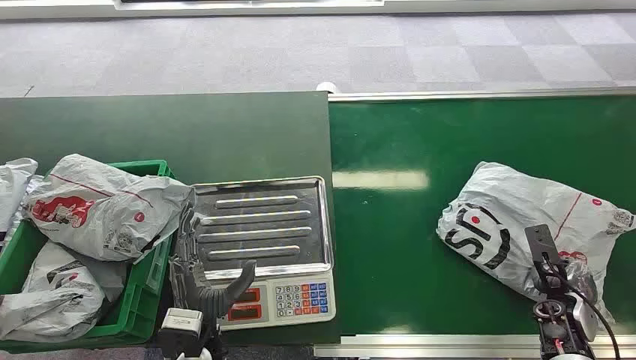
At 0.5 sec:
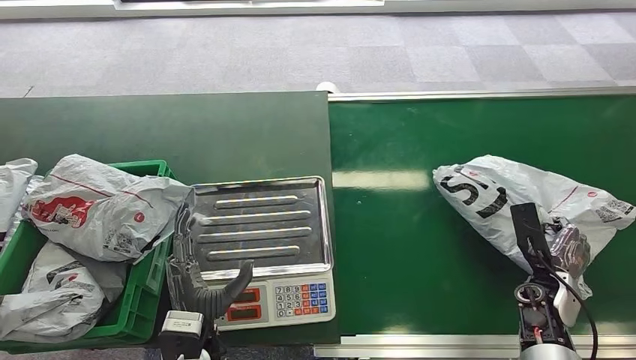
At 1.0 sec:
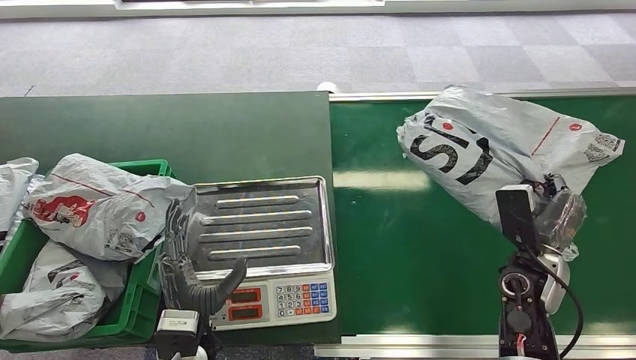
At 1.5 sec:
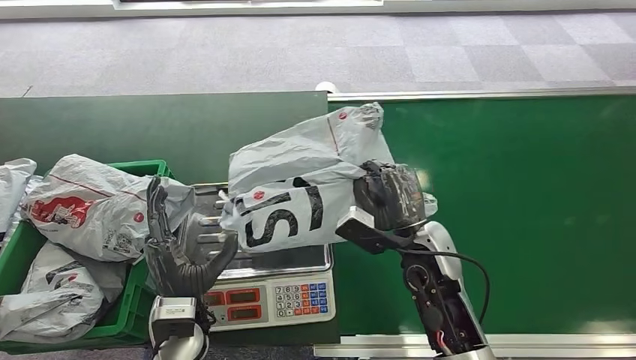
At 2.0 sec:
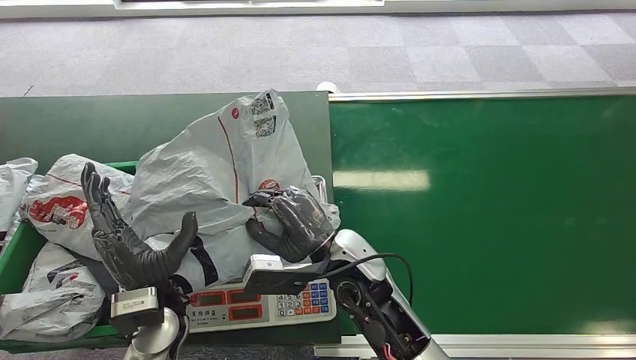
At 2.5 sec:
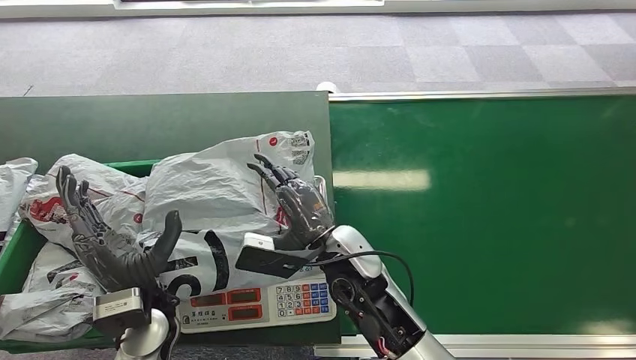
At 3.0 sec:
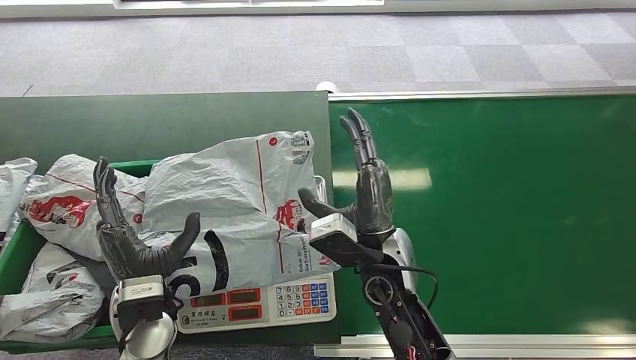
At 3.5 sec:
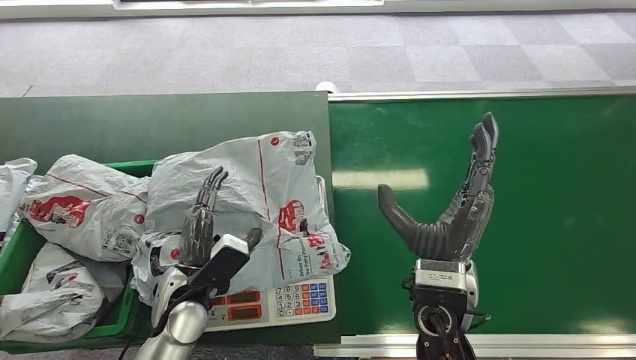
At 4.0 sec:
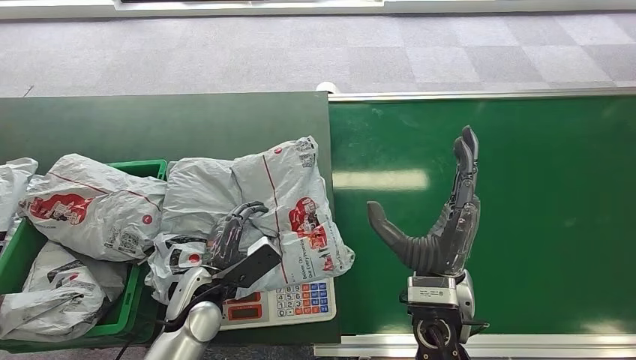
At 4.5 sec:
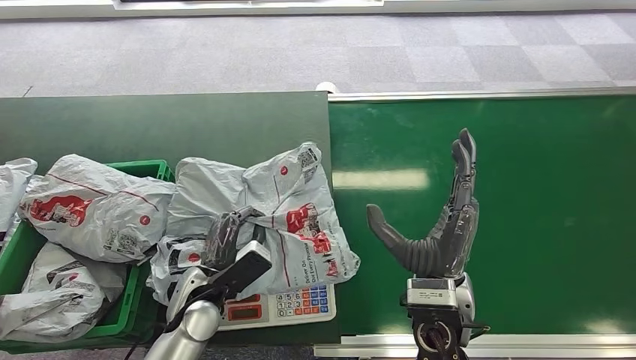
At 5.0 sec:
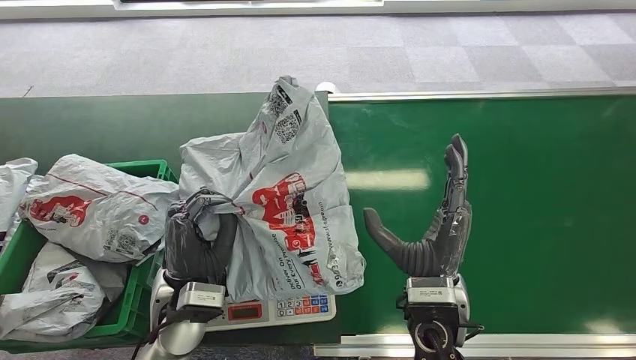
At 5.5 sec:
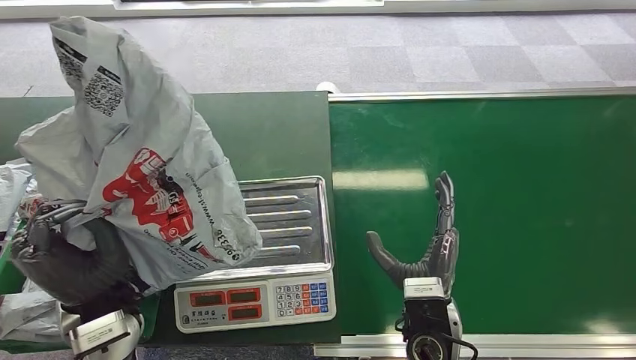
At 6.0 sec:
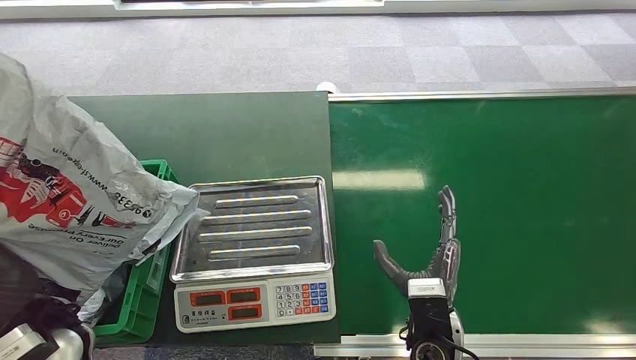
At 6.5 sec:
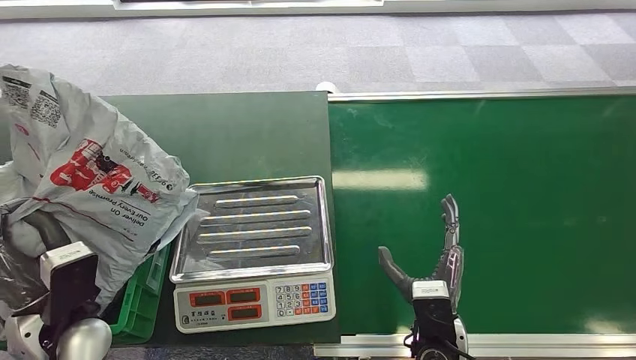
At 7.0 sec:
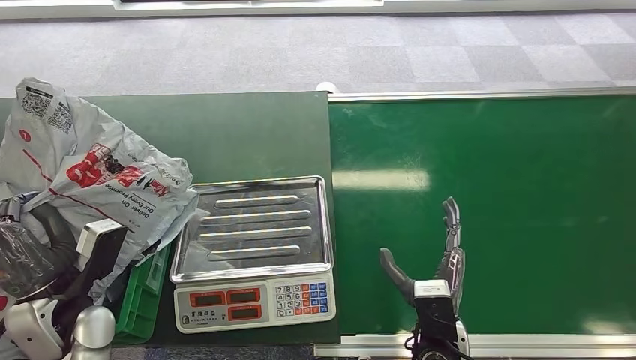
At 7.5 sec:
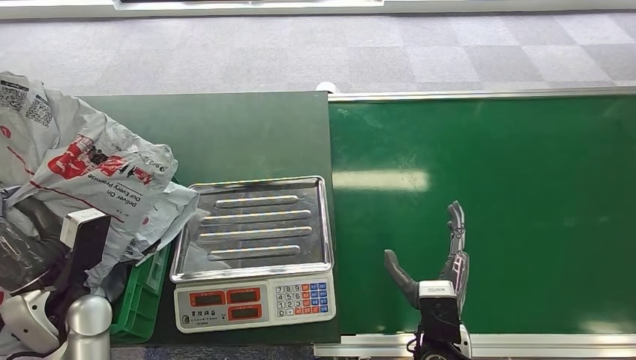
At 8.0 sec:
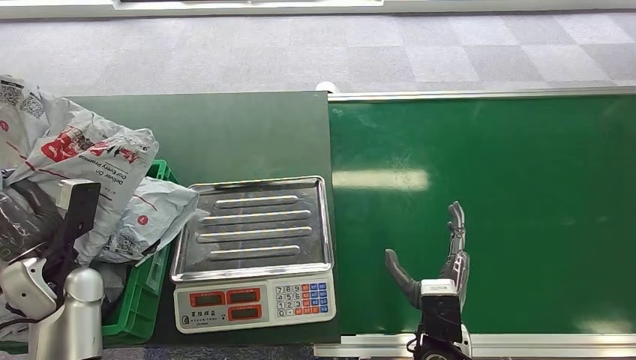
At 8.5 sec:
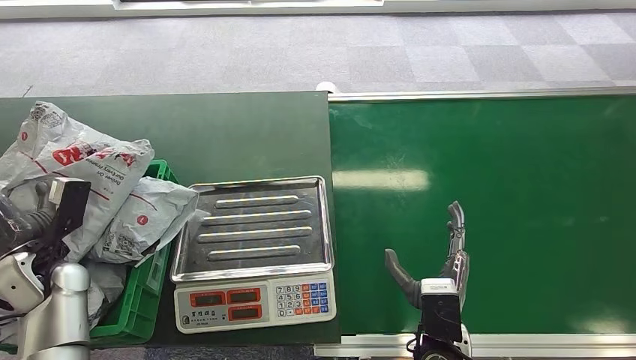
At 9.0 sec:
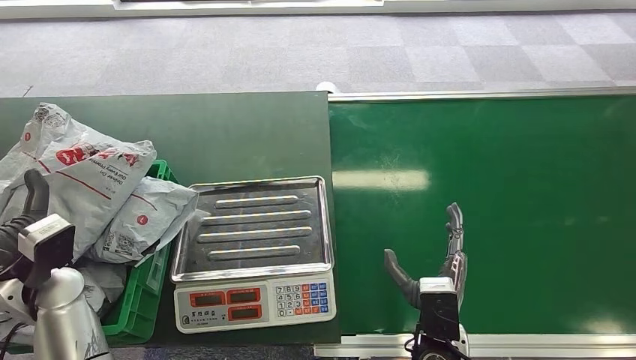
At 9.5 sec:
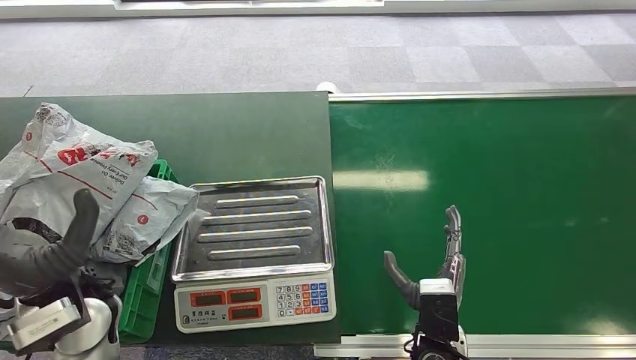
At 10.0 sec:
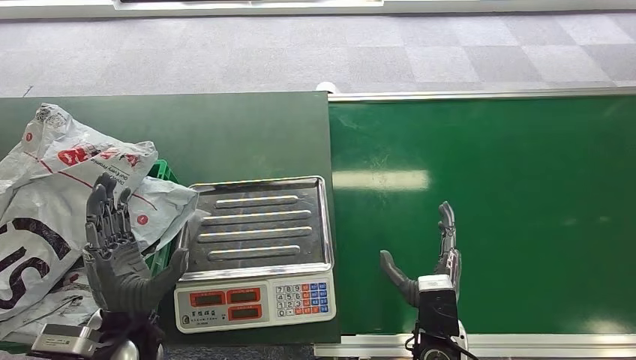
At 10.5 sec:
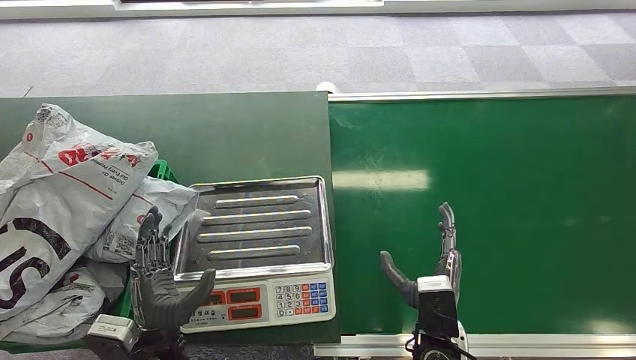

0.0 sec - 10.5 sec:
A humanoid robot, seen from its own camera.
Step, 0.0 sec - 1.0 sec: Pick up the package from the conveyor belt.
Step, 1.5 sec - 3.0 sec: Place the package onto the inbound machine.
Step, 4.0 sec - 5.5 sec: Pick up the package from the inbound machine.
Step, 6.5 sec - 10.5 sec: Place the package into the parcel locker.
6.5 sec - 8.5 sec: The left hand travels to the left and forward by roughly 15 cm.
8.5 sec - 10.5 sec: The left hand is displaced to the right and backward by approximately 25 cm.
